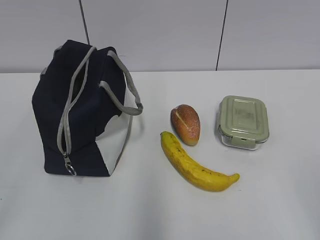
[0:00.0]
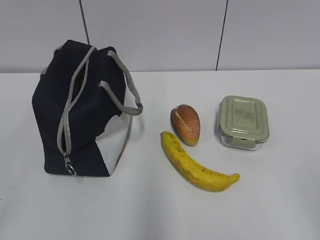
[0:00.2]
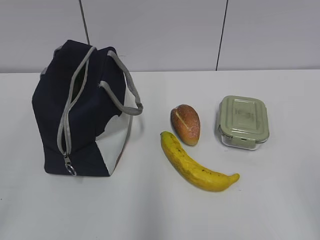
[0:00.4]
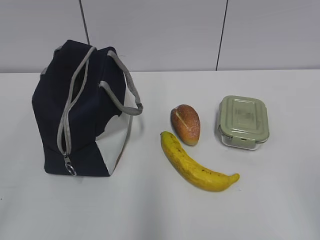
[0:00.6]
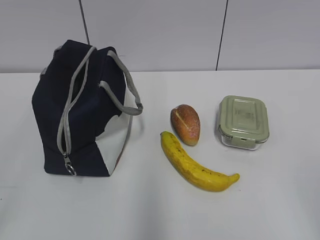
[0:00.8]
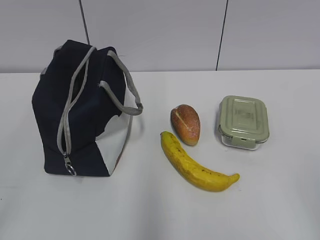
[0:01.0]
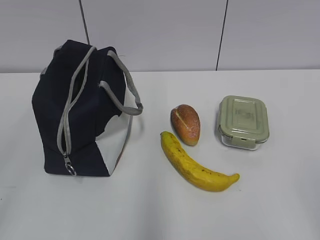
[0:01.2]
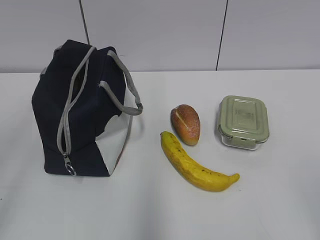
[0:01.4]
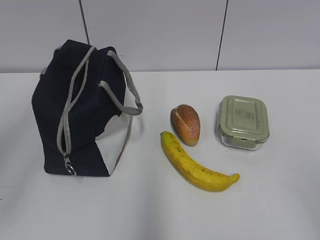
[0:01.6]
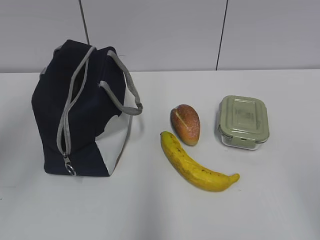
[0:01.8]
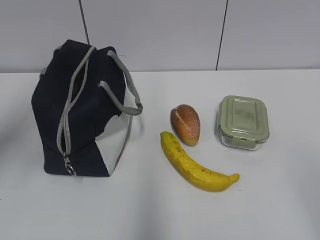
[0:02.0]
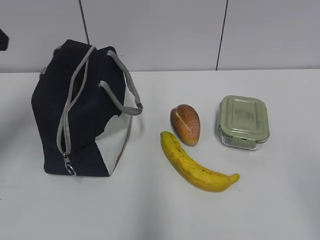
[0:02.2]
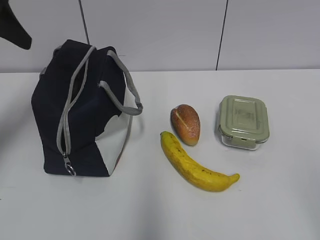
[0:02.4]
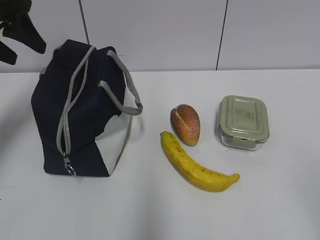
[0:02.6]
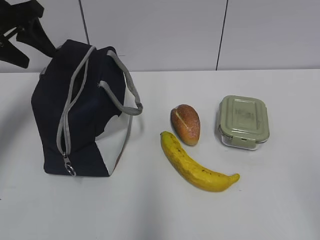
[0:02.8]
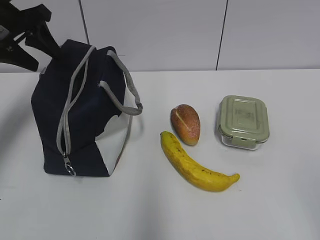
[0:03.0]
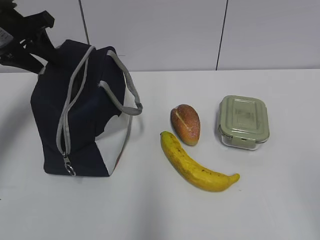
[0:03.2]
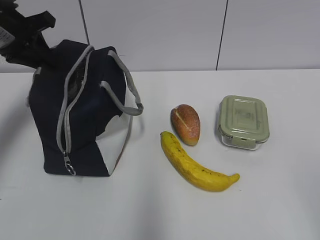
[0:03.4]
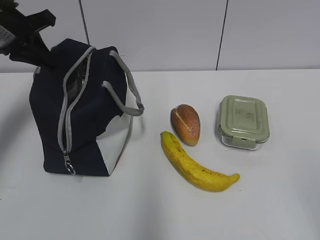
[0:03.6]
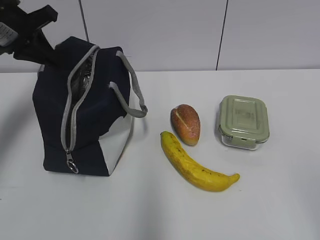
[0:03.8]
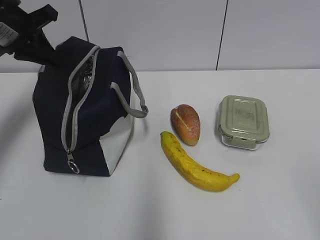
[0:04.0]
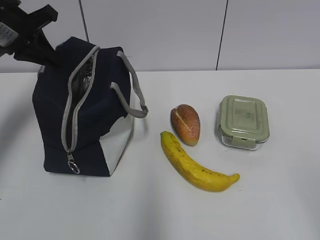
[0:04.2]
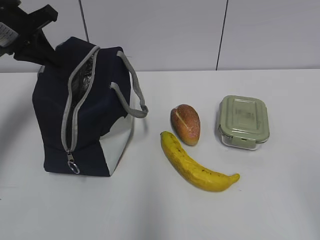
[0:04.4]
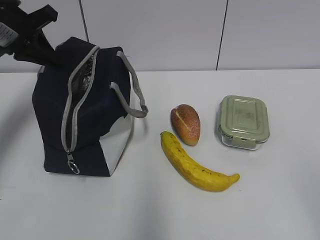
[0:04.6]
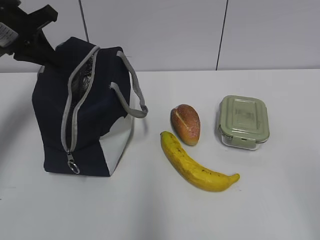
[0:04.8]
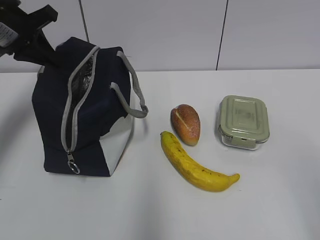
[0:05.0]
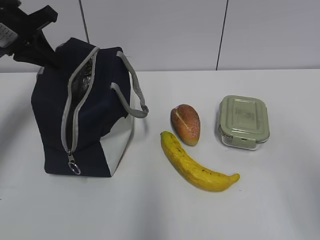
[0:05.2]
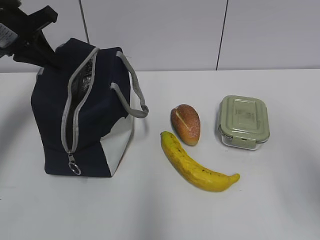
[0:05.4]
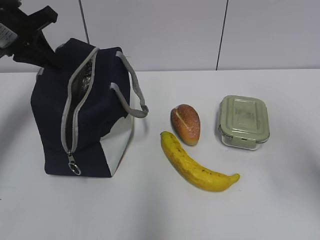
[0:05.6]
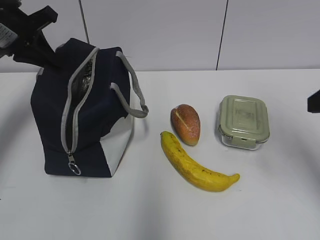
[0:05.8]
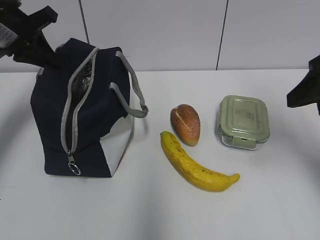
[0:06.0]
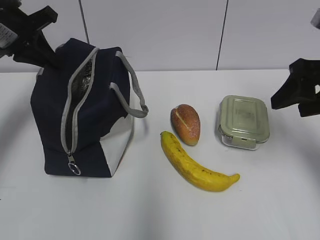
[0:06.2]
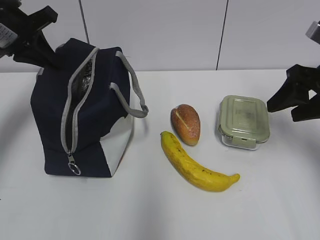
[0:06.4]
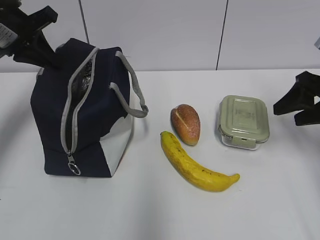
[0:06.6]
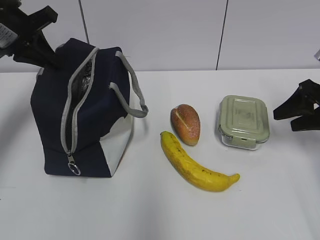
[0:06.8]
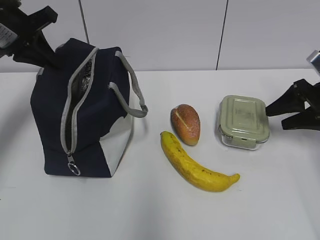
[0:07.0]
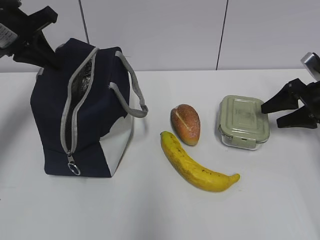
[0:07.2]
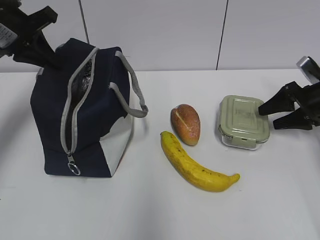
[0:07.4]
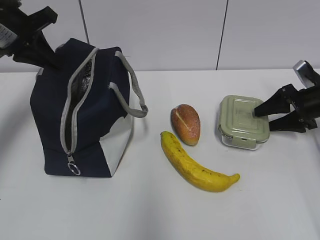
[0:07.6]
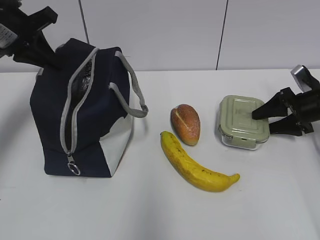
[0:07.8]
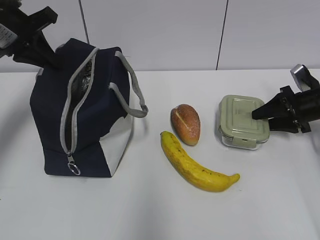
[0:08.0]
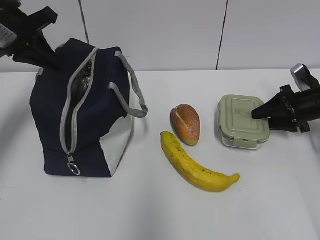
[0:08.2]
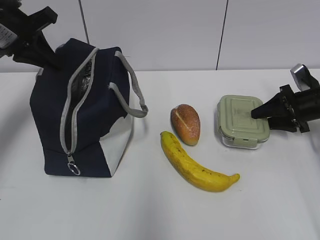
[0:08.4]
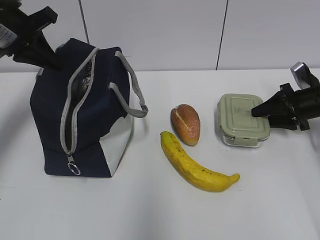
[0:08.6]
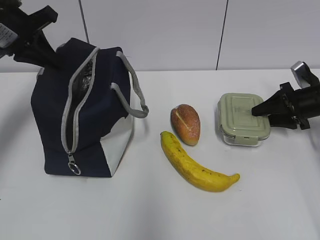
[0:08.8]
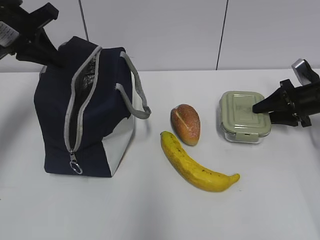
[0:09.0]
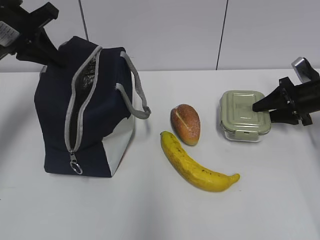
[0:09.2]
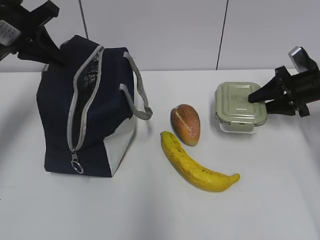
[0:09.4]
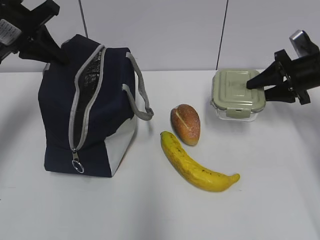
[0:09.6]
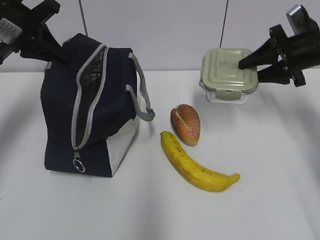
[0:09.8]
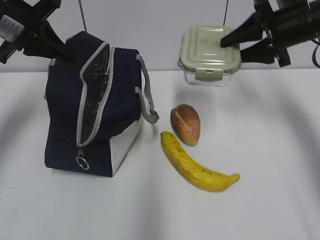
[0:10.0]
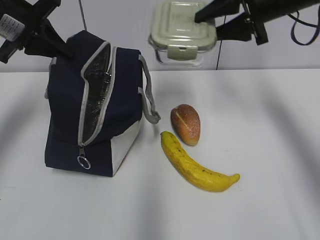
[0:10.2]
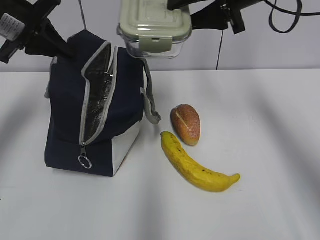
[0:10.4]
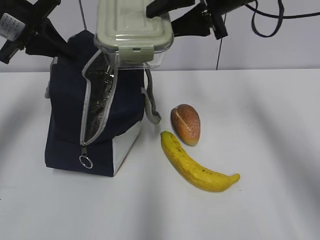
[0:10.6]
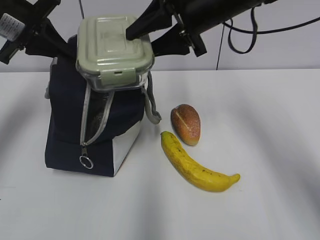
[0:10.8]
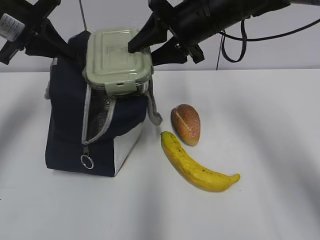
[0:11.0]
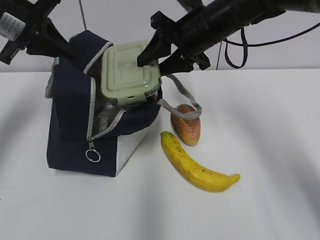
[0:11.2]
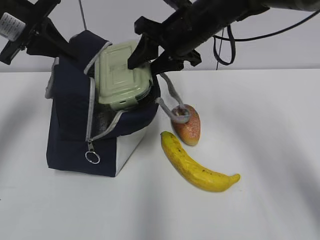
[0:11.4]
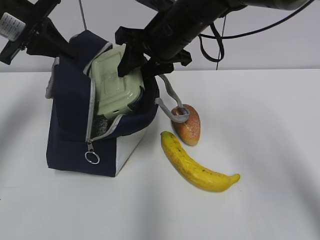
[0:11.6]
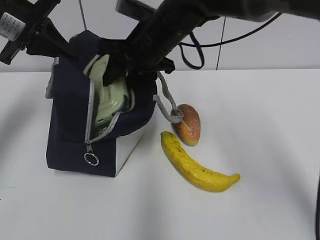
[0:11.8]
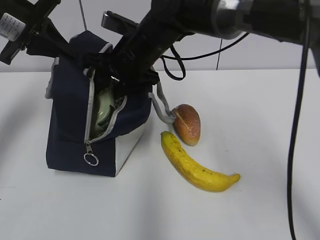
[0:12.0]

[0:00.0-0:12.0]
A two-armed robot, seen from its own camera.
0:01.6 to 0:03.0: The left gripper travels forward by about 30 cm.
0:03.0 to 0:04.4: The left gripper closes its fingers.
0:04.4 to 0:06.0: The right gripper is displaced forward by approximately 25 cm.
0:06.0 to 0:07.6: The right gripper moves downward, forward and to the right, some 25 cm.
0:07.6 to 0:09.0: The right gripper closes.
0:09.0 to 0:10.4: The right gripper travels upward and to the left by some 30 cm.
0:10.4 to 0:12.0: The right gripper shifts roughly 20 cm to the left and downward.

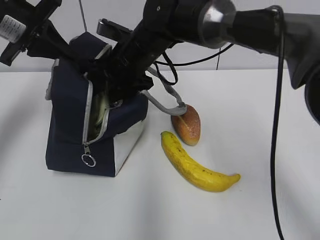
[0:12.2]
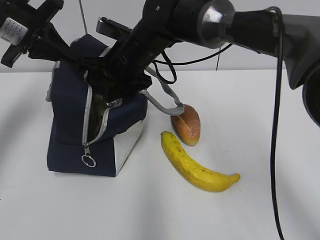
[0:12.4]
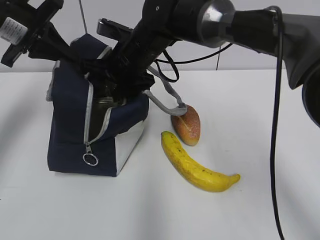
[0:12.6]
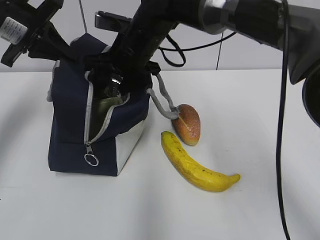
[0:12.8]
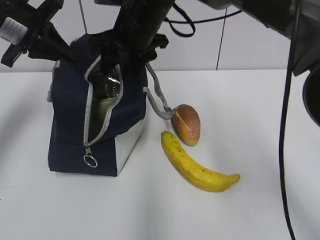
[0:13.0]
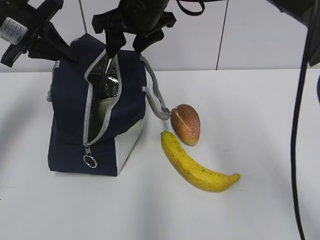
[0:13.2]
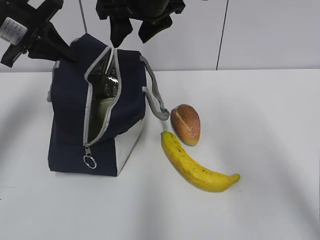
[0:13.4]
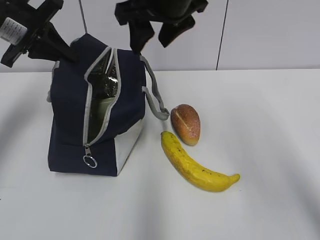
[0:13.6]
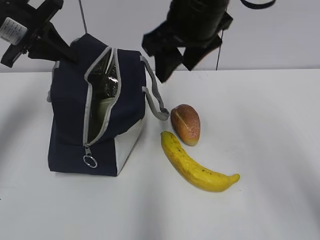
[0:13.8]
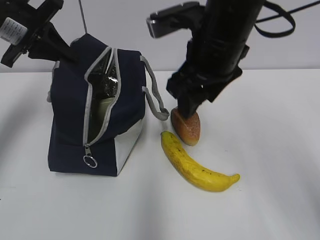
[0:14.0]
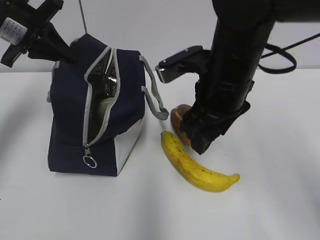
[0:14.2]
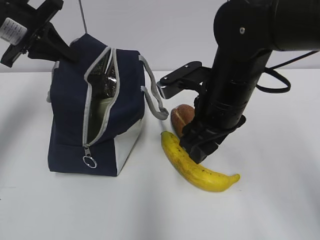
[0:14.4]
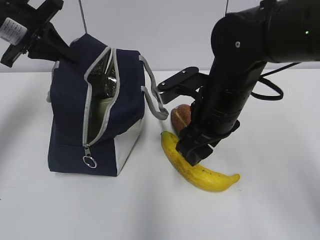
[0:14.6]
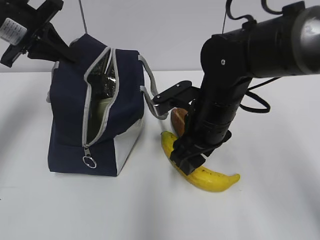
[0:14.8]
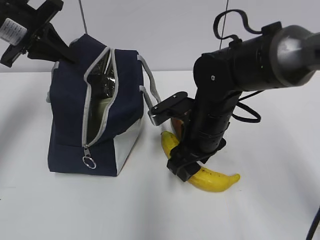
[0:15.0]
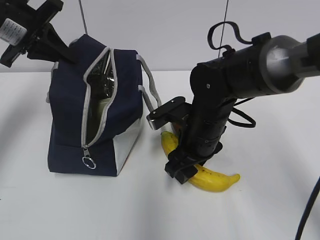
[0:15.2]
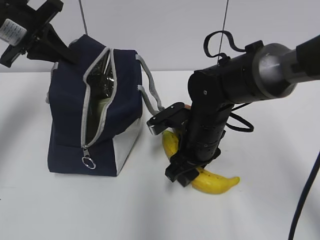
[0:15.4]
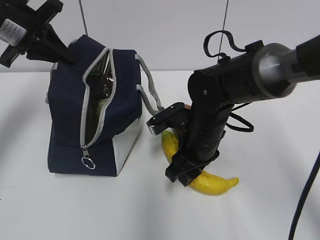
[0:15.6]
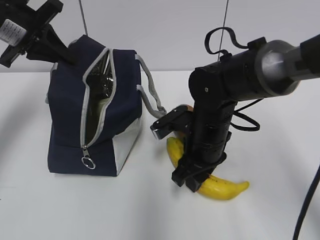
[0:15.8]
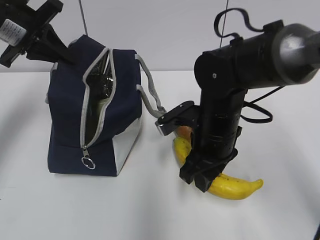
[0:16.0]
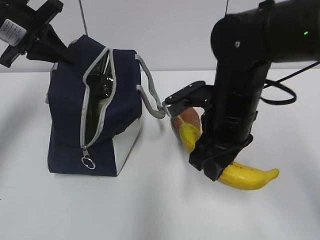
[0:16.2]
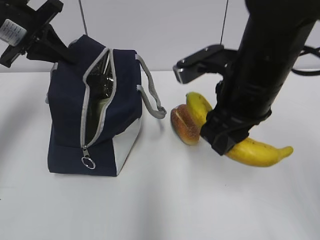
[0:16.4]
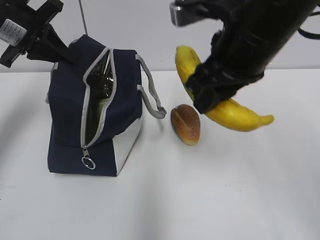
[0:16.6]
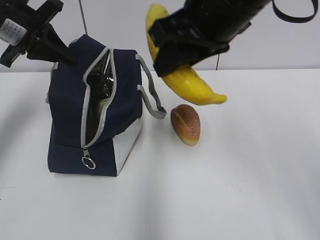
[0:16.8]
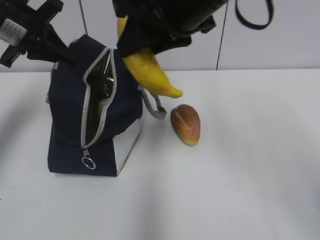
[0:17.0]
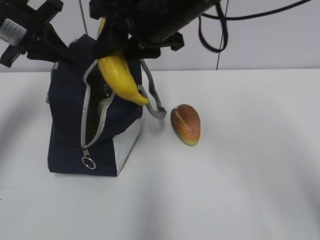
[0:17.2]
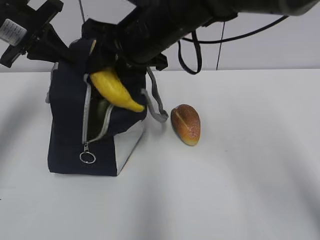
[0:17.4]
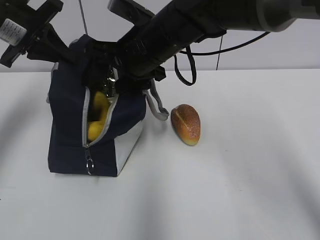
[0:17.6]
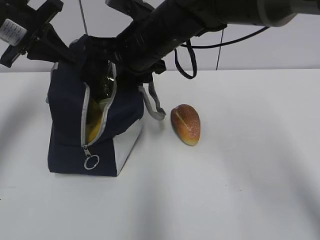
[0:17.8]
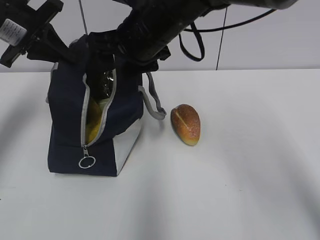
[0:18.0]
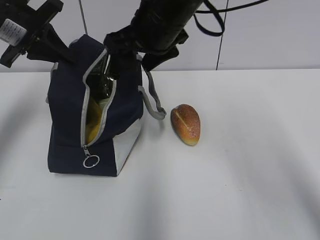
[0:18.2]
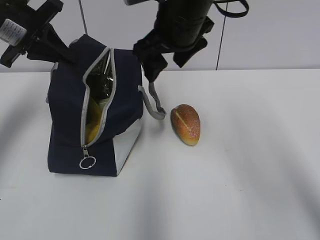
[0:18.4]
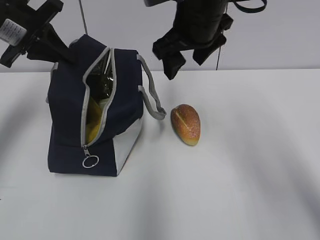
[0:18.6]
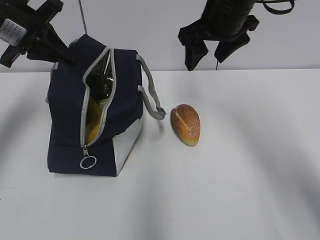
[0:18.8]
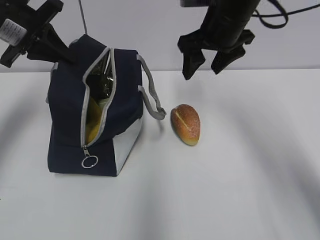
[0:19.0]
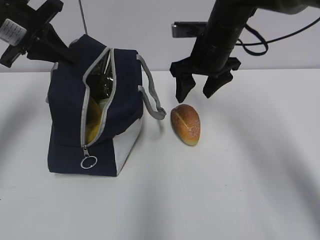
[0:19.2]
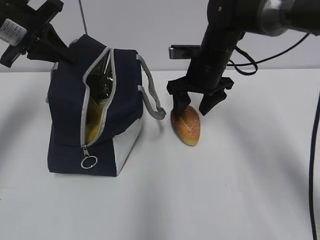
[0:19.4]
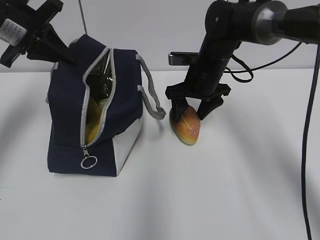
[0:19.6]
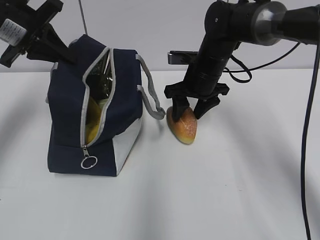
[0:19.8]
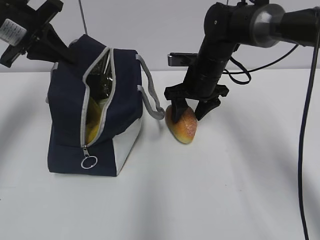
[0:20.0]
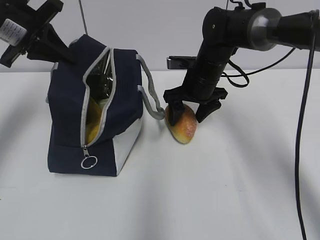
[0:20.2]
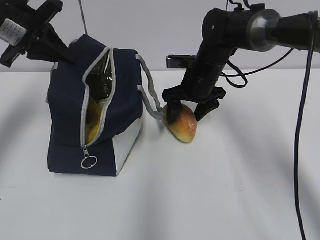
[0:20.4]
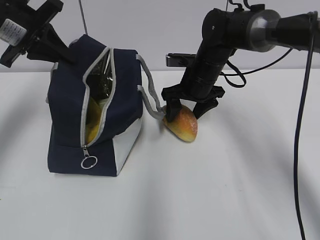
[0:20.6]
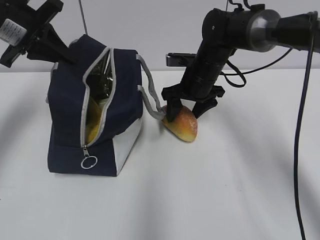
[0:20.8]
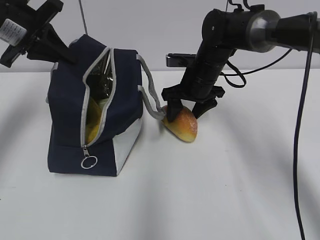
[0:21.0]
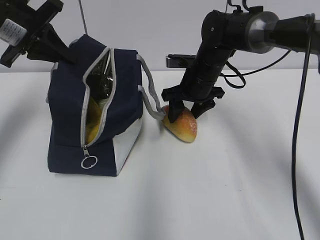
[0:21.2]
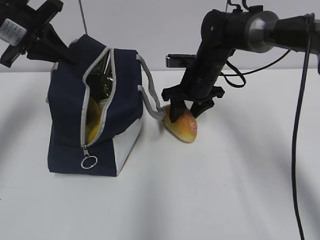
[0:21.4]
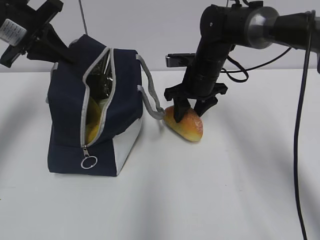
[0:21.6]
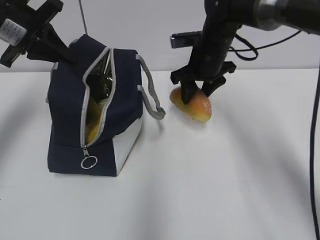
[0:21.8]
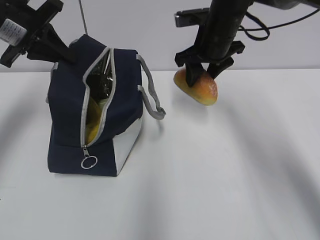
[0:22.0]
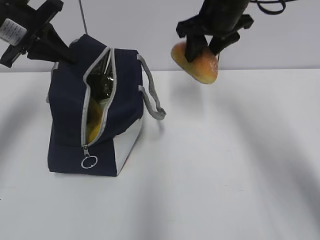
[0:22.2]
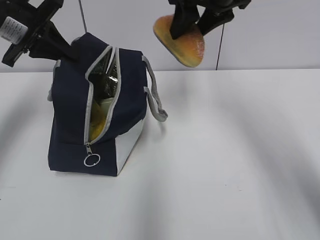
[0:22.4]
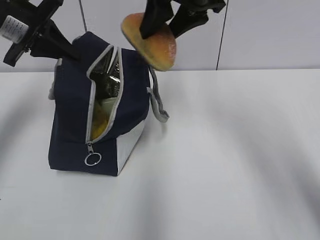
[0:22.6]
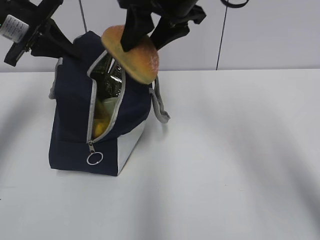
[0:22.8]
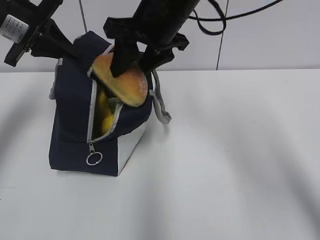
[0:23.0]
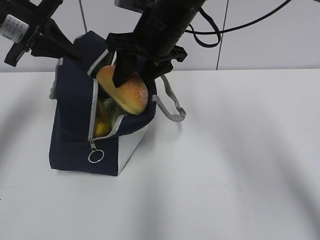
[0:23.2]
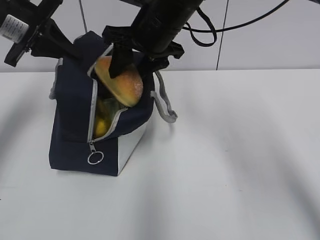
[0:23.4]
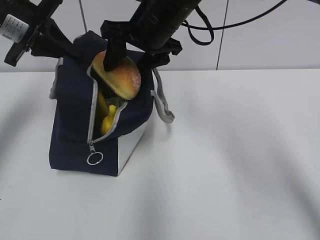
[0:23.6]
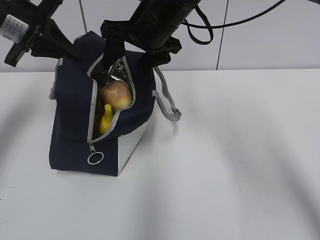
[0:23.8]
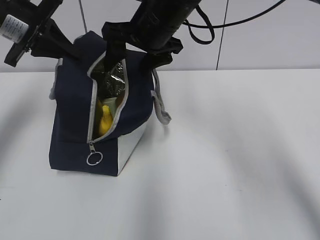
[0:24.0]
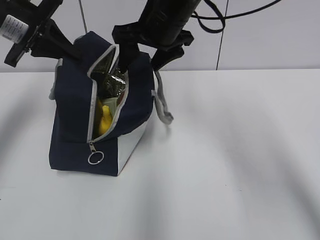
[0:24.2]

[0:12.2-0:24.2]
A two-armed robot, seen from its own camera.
0:12.2 to 0:13.8: The right gripper is displaced upward, to the right and backward by about 15 cm.
0:13.8 to 0:15.2: The right gripper moves downward, about 20 cm.
0:15.2 to 0:16.6: The right gripper moves upward, some 20 cm.
0:16.6 to 0:18.2: The right gripper is displaced forward and to the left by approximately 15 cm, and opens.
0:18.2 to 0:19.8: The right gripper goes some 15 cm downward, to the right and forward.
0:19.8 to 0:21.2: The grippers stay close to where they were, moving slightly.
0:21.2 to 0:22.6: The right gripper heads upward, covering roughly 20 cm.
0:22.6 to 0:24.2: The right gripper is displaced downward by some 5 cm.
